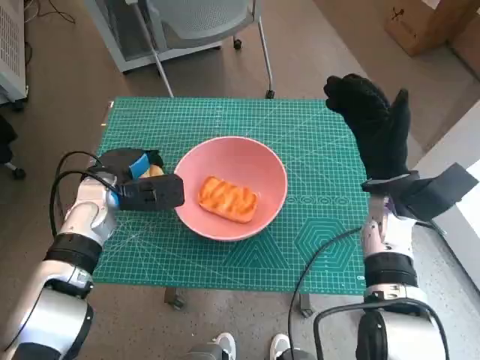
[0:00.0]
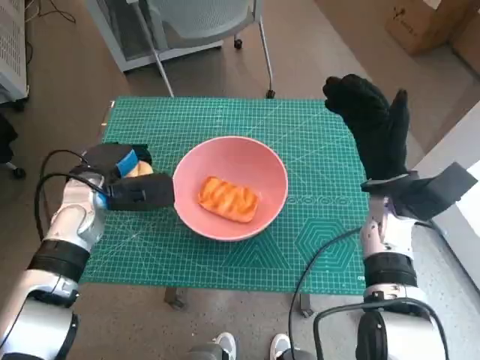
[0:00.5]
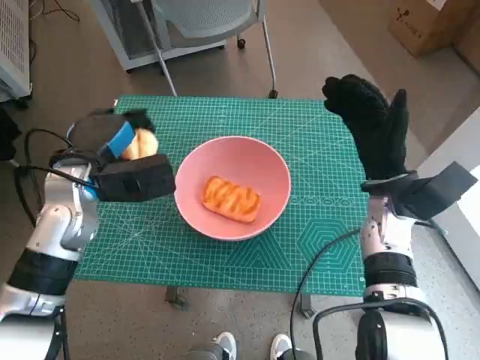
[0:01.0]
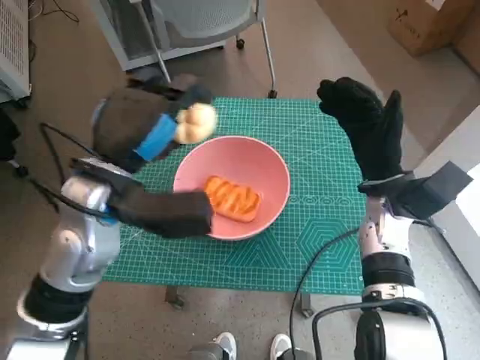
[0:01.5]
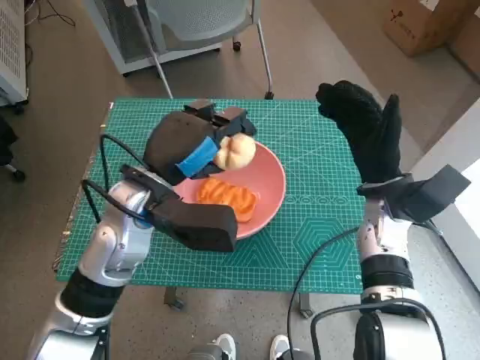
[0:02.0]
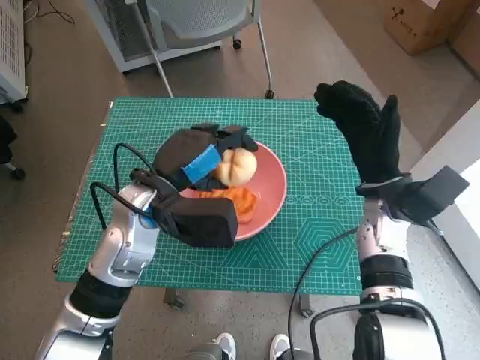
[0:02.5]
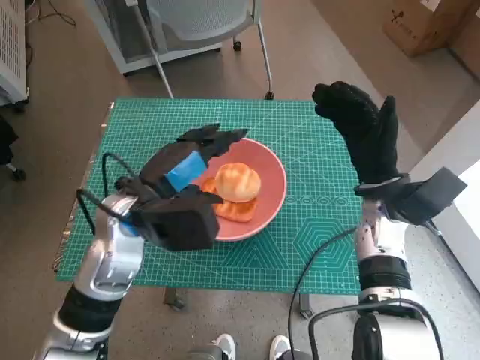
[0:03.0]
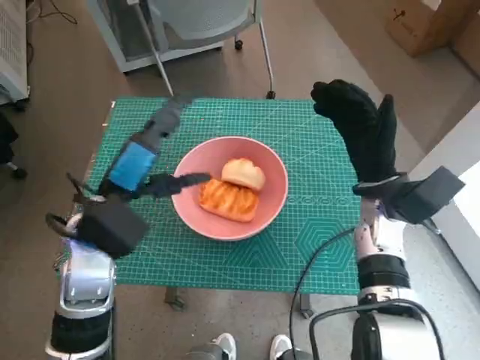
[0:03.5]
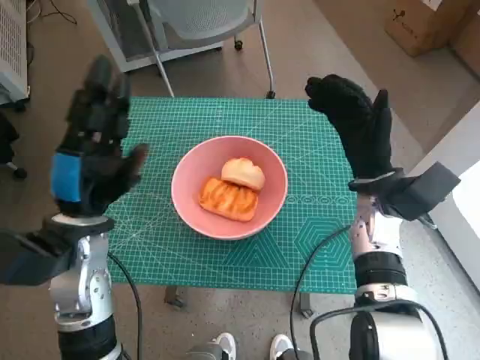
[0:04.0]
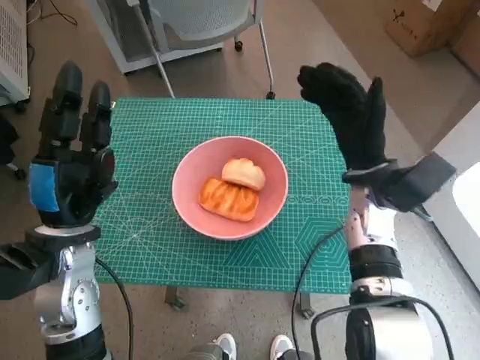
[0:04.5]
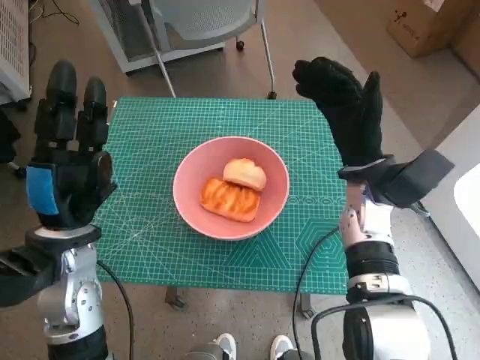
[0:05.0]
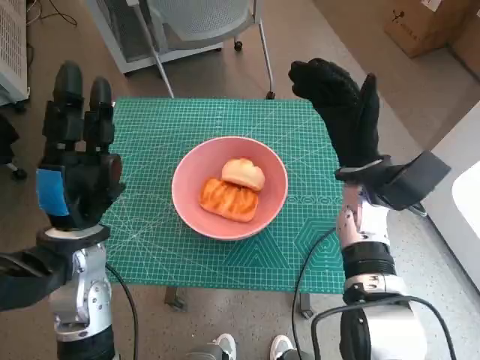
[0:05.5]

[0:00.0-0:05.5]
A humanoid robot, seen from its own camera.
Step, 0:00.0 to 0:03.0: Place the round bread in pink bowl with left hand.
0:00.0 to 0:02.0: The left hand heads to the right, upward and backward, covering about 15 cm.
0:02.0 to 0:03.5: The left hand shifts by roughly 5 cm.

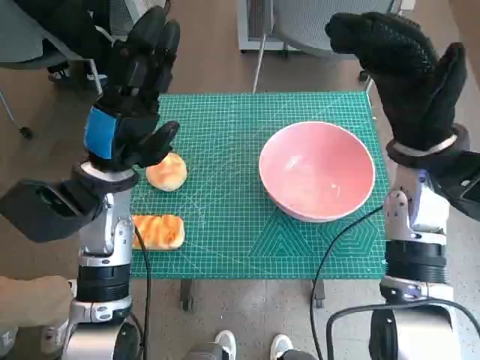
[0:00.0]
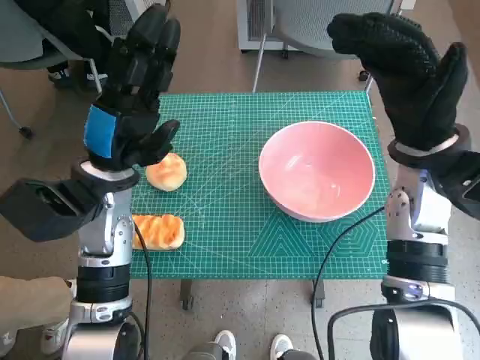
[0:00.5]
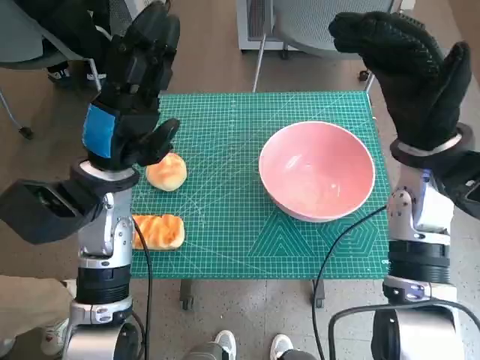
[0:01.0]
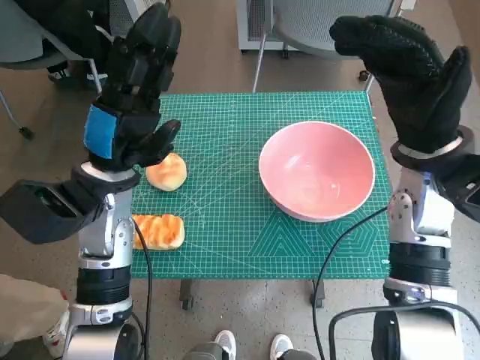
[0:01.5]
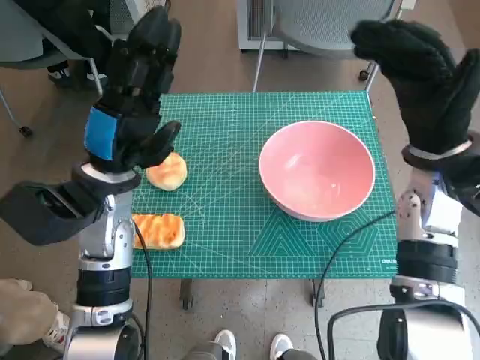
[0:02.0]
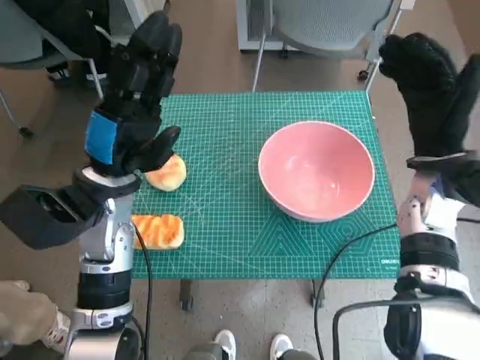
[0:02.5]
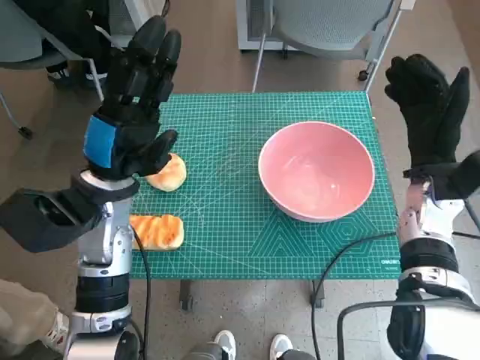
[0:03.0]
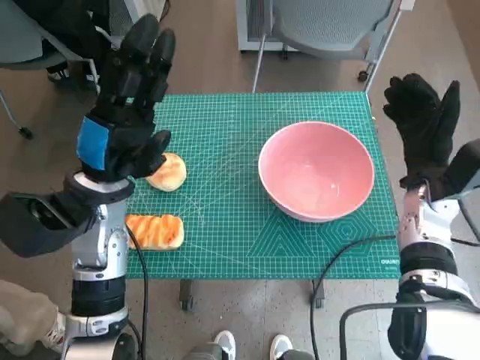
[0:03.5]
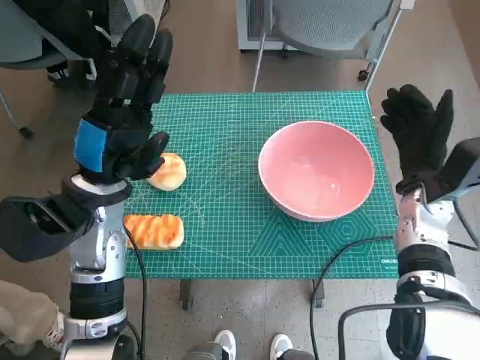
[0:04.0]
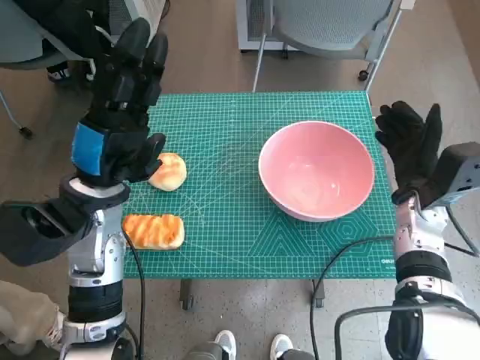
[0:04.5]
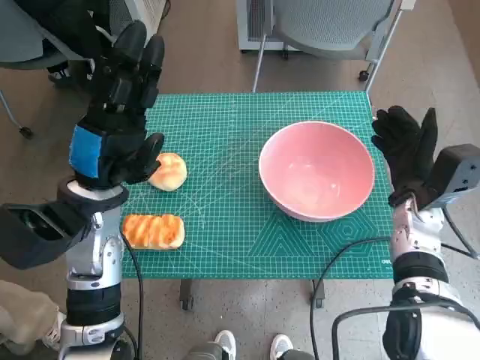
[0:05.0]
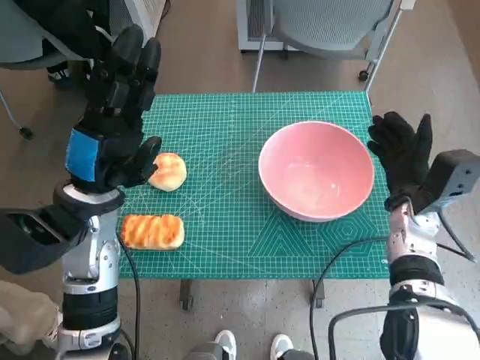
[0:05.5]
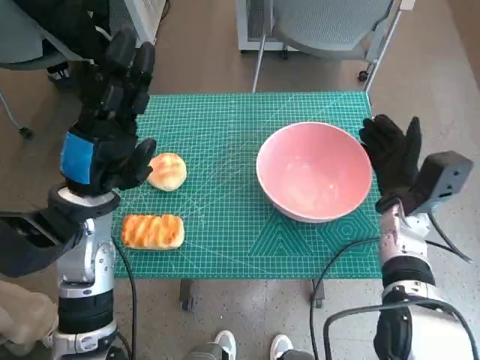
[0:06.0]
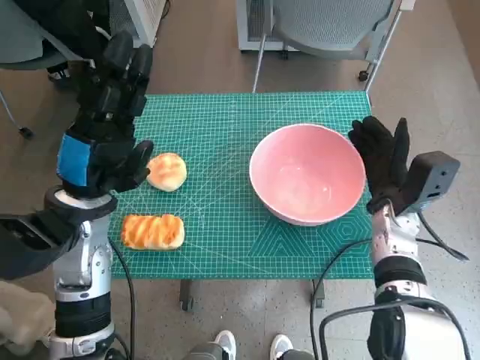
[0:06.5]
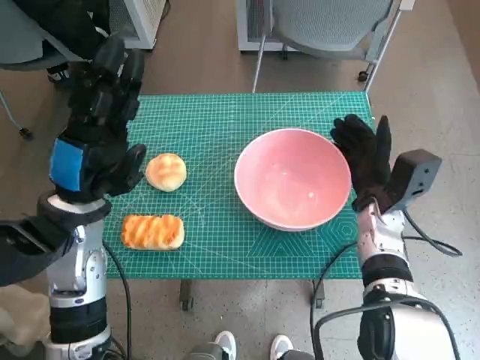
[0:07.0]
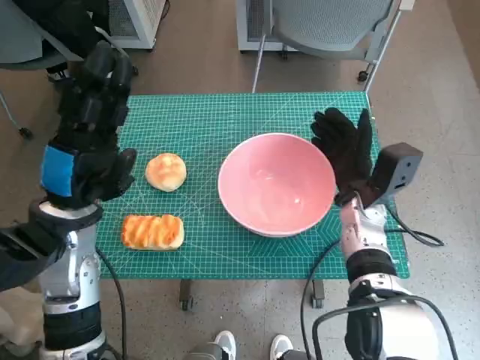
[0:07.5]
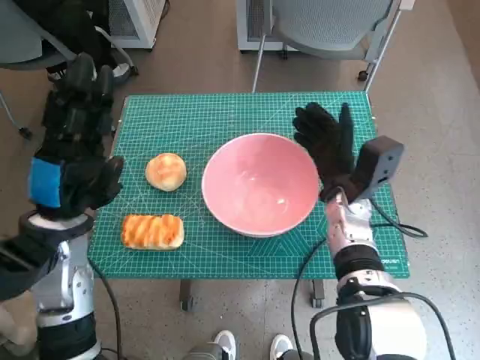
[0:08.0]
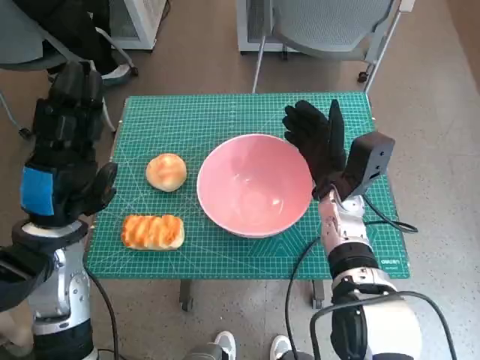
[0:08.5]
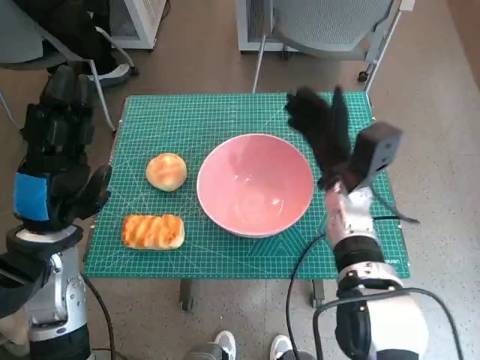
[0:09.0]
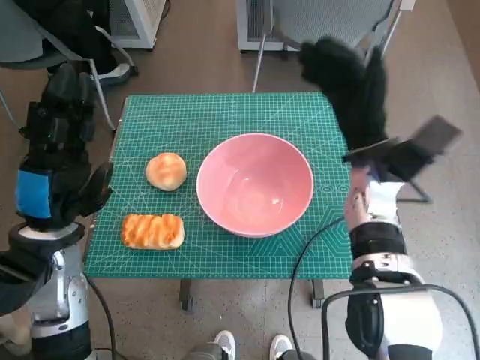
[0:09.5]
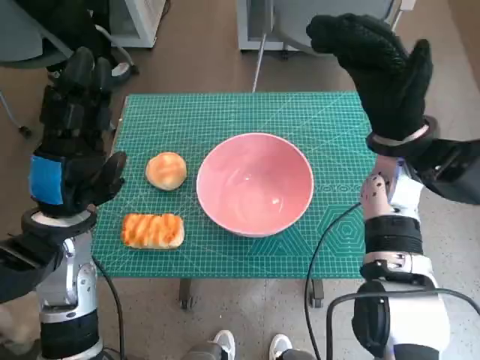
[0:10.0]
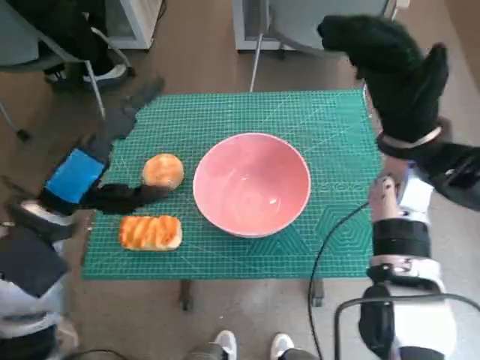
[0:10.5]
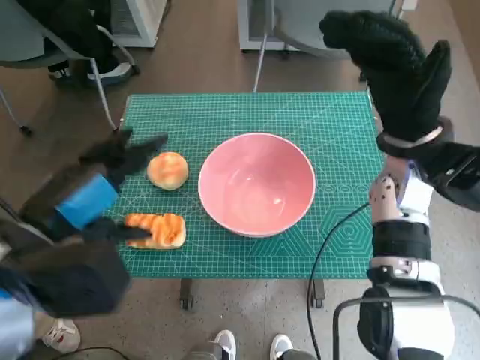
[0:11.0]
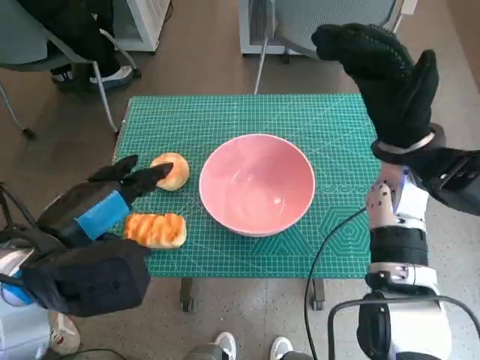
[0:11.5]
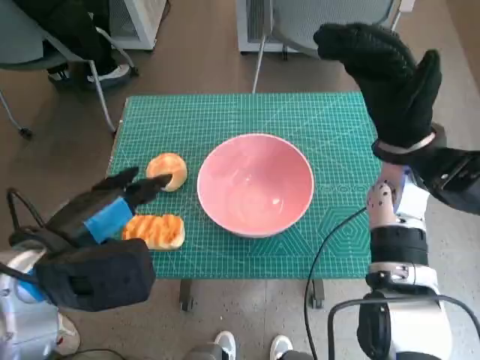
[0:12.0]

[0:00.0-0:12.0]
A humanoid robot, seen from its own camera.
Step, 0:00.0 to 0:09.0: Move the pink bowl to the center of table with right hand.
0:02.0 to 0:04.0: The right hand goes roughly 10 cm downward.
0:06.0 to 0:08.0: The right hand heads to the left, covering about 10 cm.
0:08.0 to 0:10.0: The right hand heads upward, covering some 10 cm.
0:10.0 to 0:12.0: The left hand shifts by roughly 5 cm.

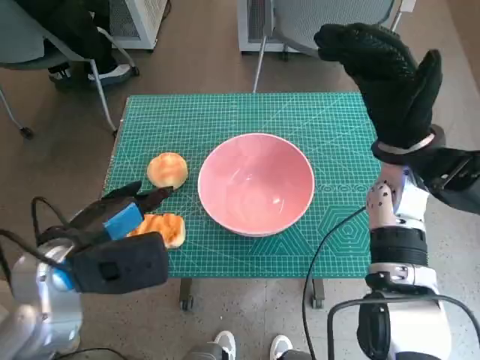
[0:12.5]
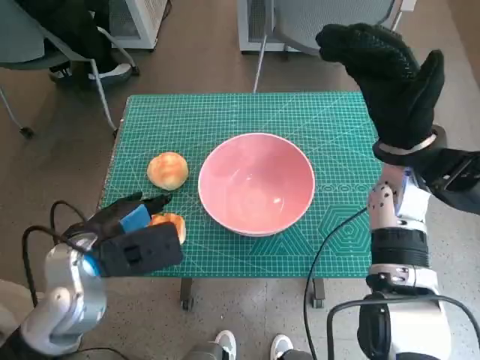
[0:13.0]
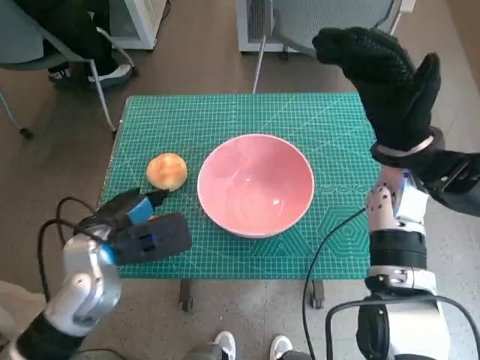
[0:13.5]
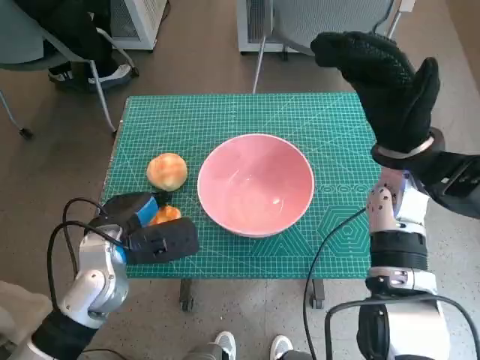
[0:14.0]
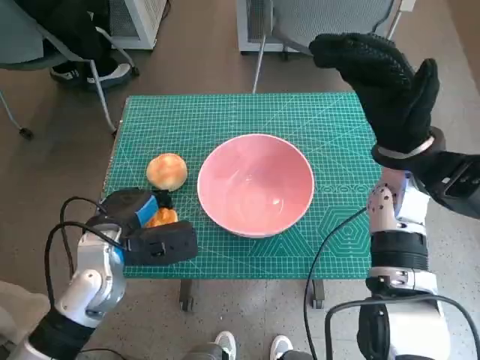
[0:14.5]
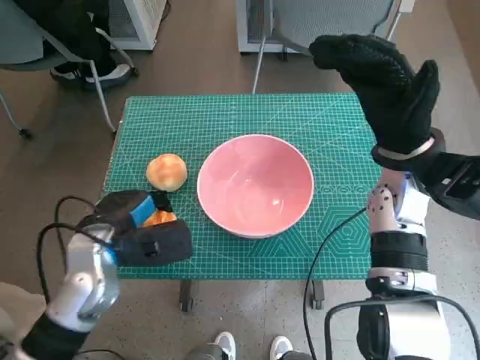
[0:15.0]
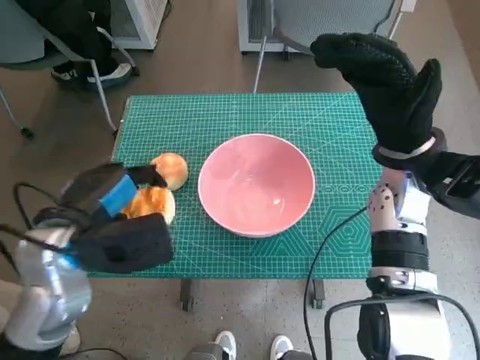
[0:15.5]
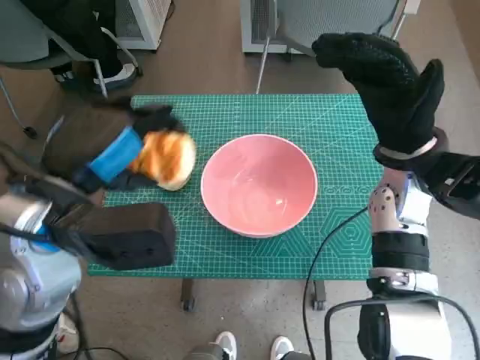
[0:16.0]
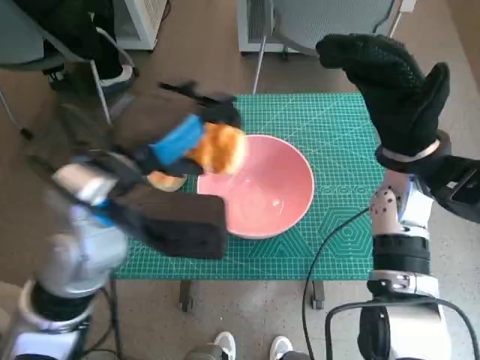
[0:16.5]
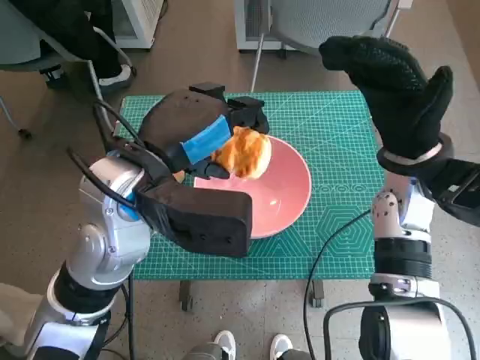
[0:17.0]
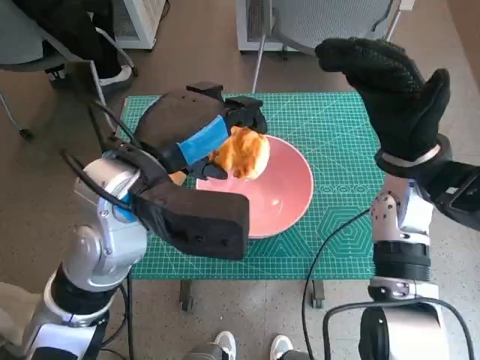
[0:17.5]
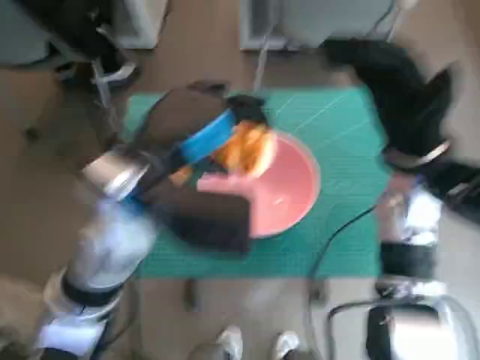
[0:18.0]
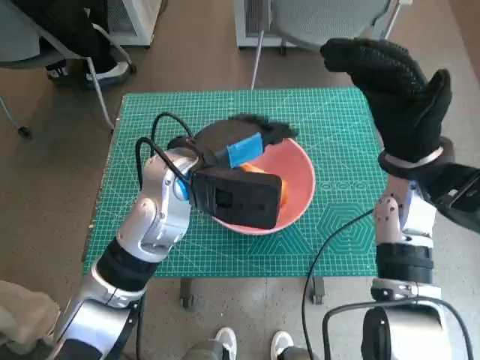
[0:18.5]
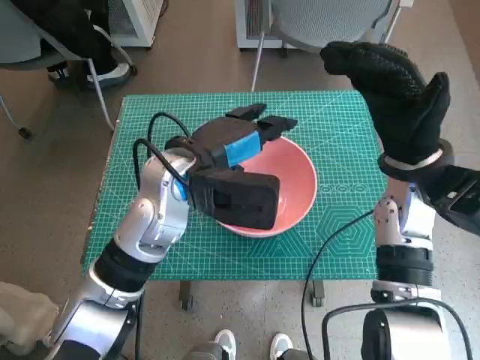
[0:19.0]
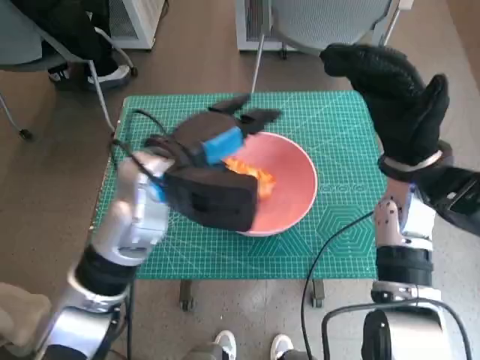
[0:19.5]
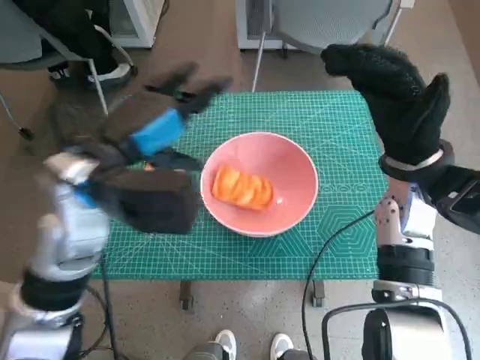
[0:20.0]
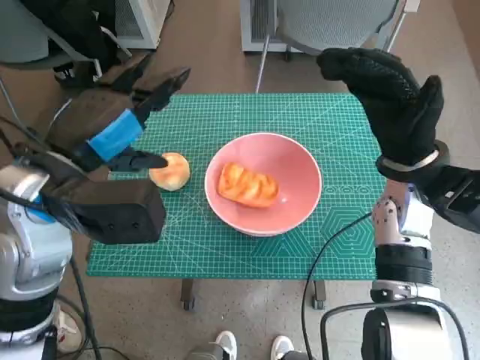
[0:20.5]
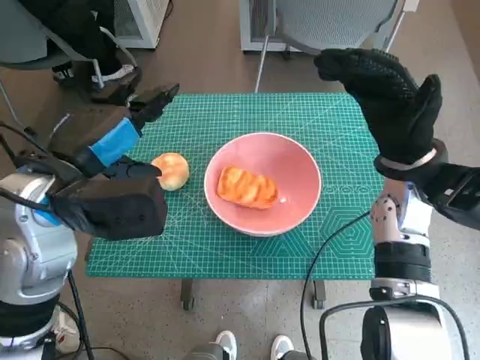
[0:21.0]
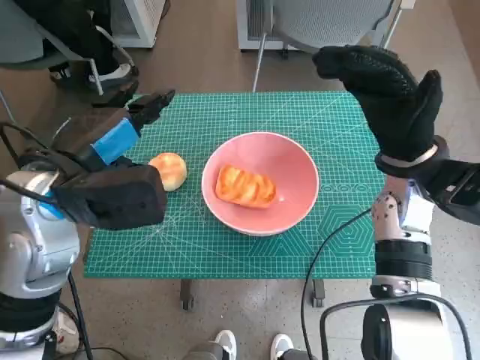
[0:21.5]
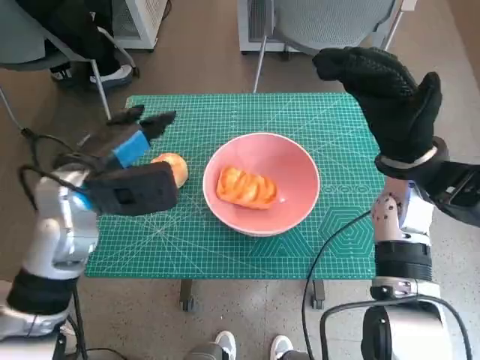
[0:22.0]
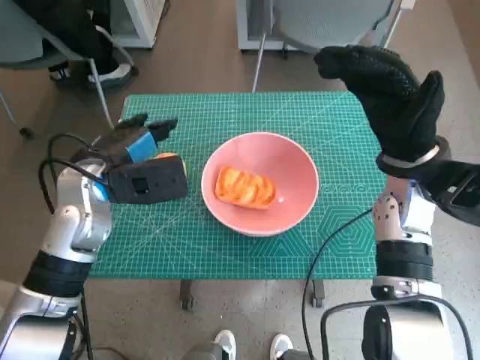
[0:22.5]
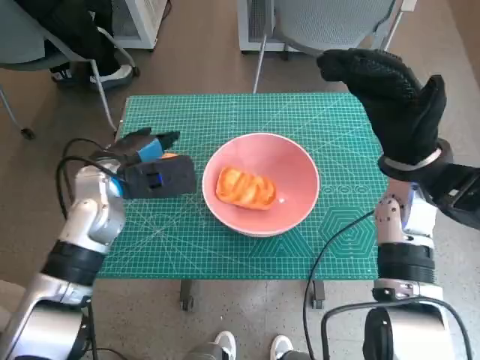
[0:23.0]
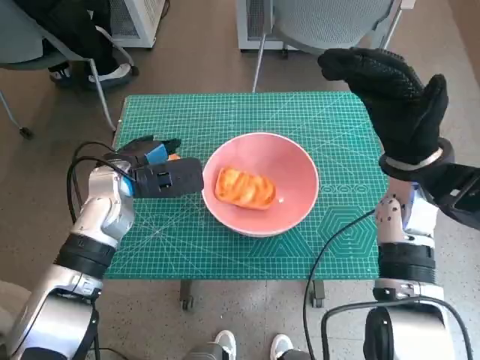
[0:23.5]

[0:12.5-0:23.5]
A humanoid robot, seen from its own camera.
Step, 0:14.5 to 0:18.5: Place the long bread in pink bowl with left hand.
0:12.5 to 0:14.5: The left hand travels downward and forward by some 10 cm.
0:14.5 to 0:16.0: The left hand heads upward, covering about 15 cm.
0:16.0 to 0:18.0: The left hand moves to the right, about 5 cm.
0:21.5 to 0:23.5: The left hand heads downward and forward, covering about 15 cm.
